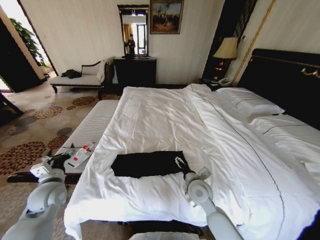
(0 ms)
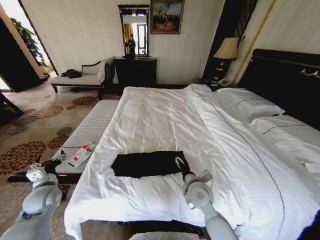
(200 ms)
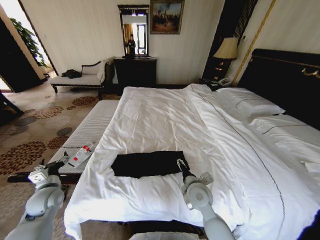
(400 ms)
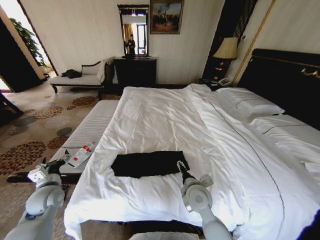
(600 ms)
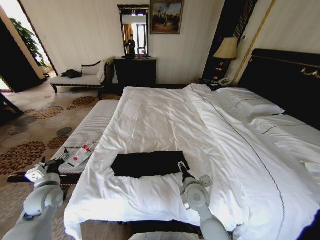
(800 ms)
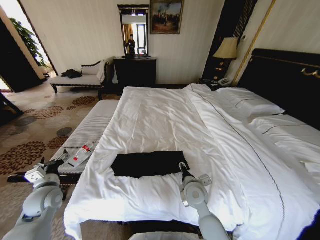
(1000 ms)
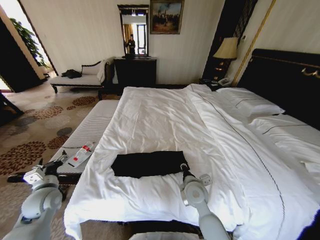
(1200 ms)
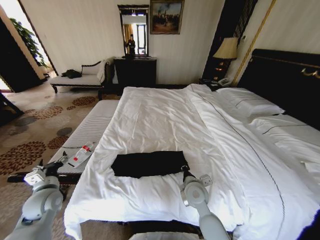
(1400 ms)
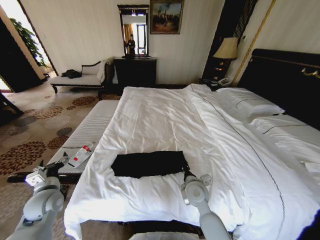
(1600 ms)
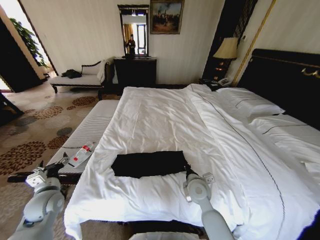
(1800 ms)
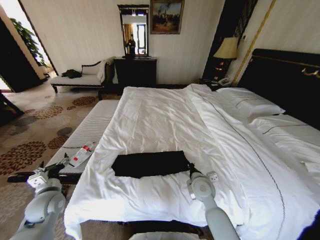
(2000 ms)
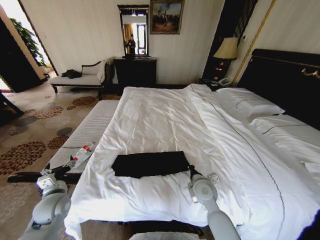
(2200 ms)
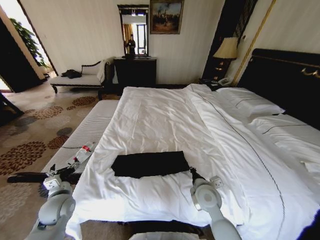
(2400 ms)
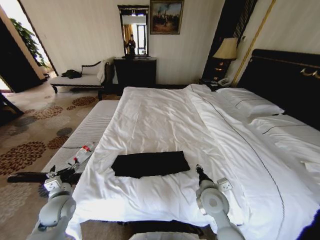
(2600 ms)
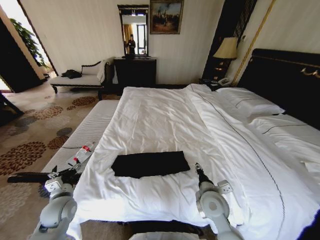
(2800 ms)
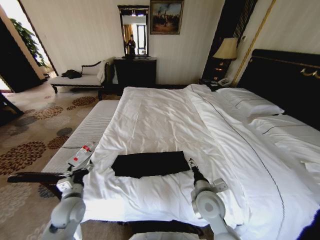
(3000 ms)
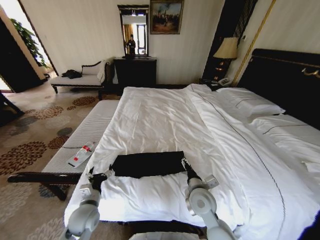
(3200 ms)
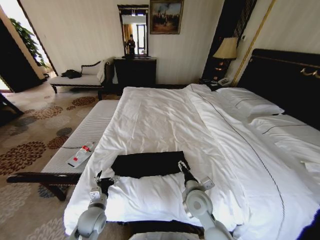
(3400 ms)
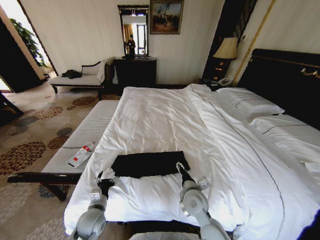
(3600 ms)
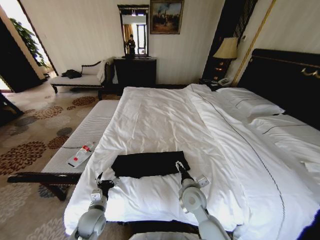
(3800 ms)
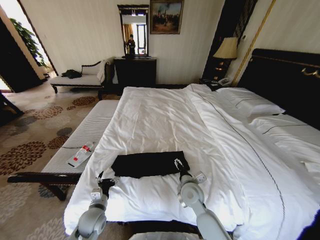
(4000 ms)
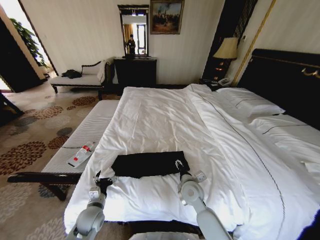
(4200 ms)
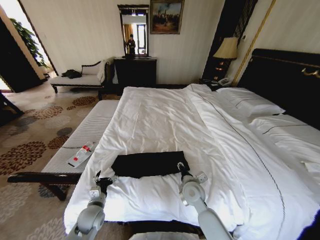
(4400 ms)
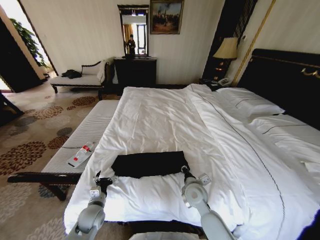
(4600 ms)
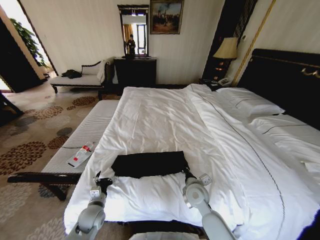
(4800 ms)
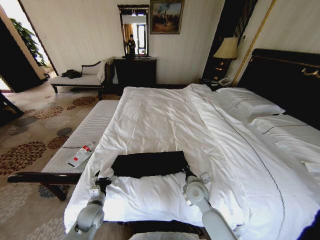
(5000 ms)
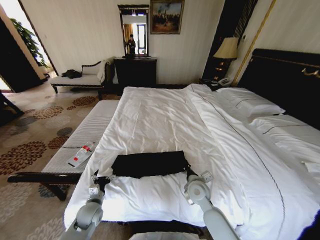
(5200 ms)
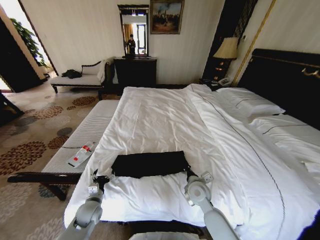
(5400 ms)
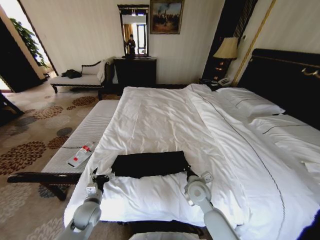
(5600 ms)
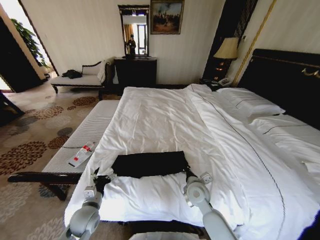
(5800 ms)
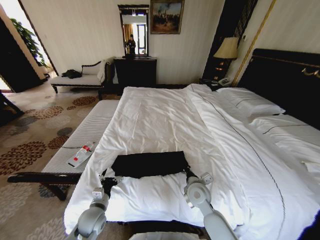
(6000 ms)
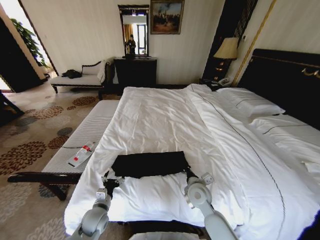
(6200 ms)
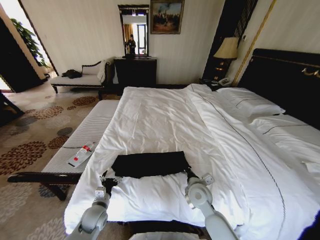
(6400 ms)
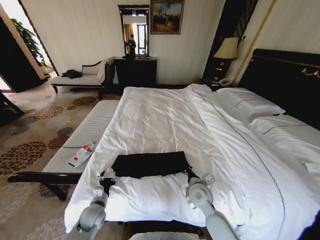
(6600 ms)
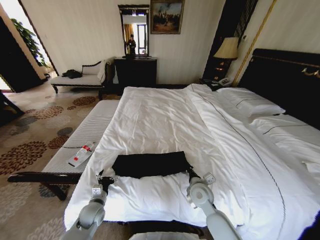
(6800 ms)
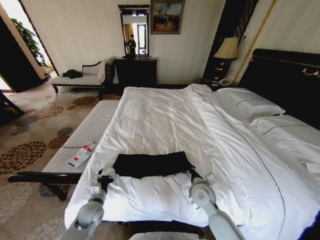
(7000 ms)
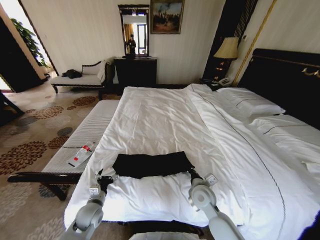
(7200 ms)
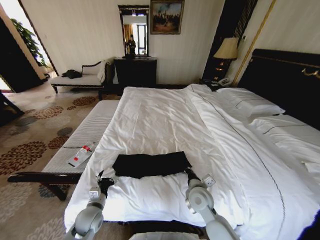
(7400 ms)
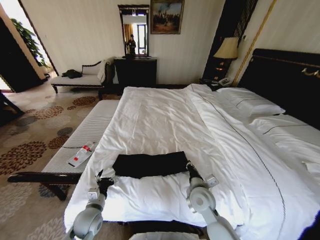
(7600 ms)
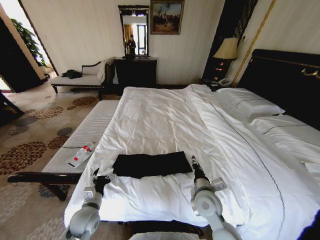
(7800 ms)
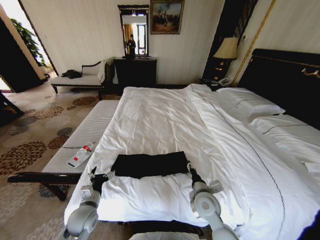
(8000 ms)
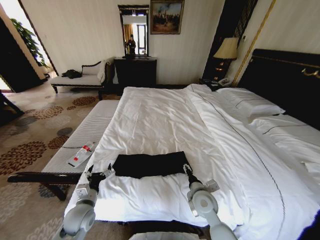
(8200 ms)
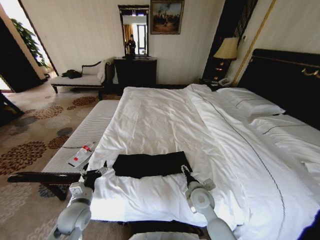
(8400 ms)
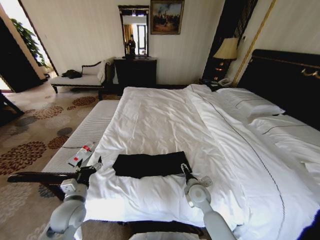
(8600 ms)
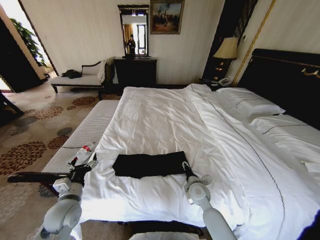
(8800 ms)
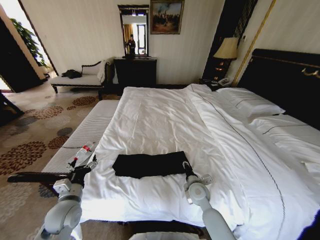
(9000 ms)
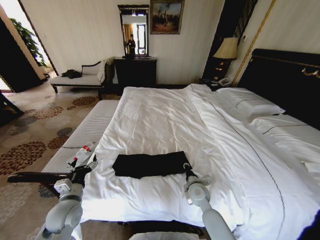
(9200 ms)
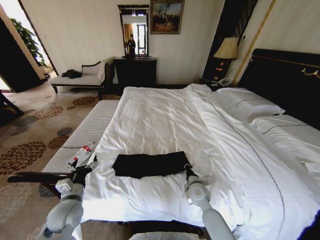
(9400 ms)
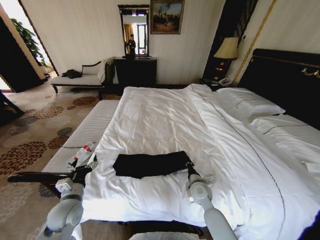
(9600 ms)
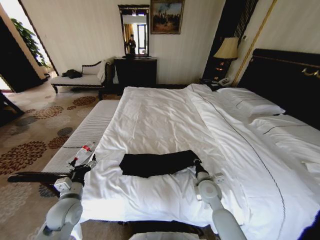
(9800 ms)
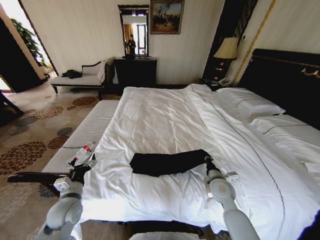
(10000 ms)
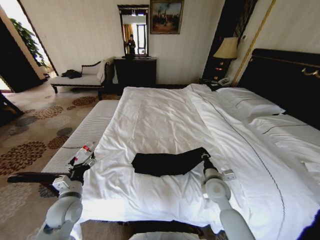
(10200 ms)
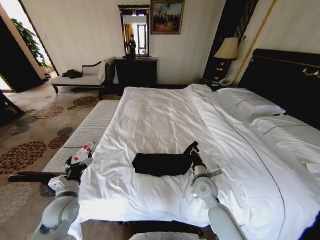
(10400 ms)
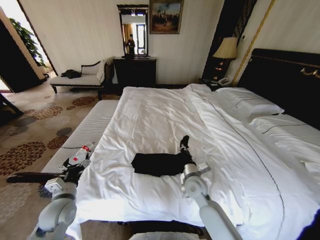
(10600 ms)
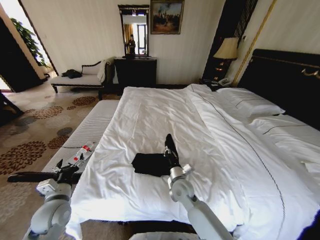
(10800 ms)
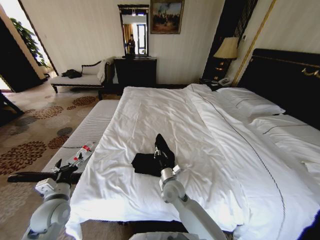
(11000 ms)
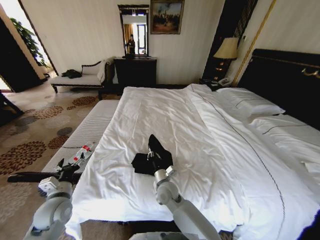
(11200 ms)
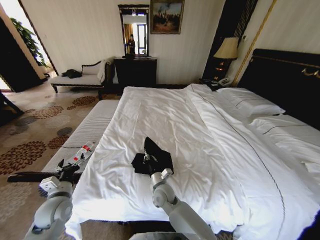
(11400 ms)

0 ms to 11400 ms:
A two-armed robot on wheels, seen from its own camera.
Task of the whole recording: Fold the clothes on the bed.
0 ms to 1400 ms: The right gripper closes its fingers.
1400 ms to 2800 ms: The left gripper shifts by approximately 5 cm. The right gripper is displaced to the right by about 5 cm.
2800 ms to 4200 ms: The left gripper heads to the right and downward, covering some 10 cm; the right gripper heads to the left and forward, covering some 10 cm.
4200 ms to 5600 ms: The right gripper closes its fingers.
5600 ms to 7200 ms: There are only small adjustments of the grippers.
7200 ms to 8600 ms: The left gripper is displaced upward by roughly 10 cm; the right gripper opens.
8600 ms to 10000 ms: The right gripper is displaced to the right and upward by approximately 10 cm, and closes its fingers.
10000 ms to 11400 ms: The right gripper is displaced to the left by roughly 25 cm.

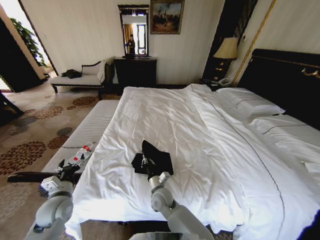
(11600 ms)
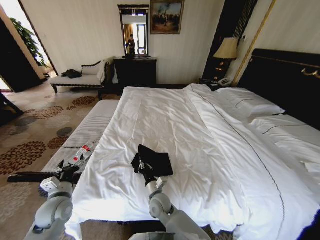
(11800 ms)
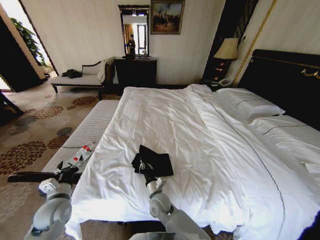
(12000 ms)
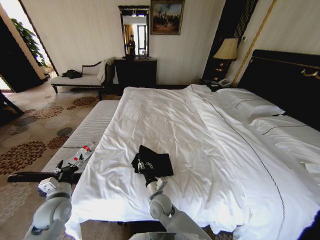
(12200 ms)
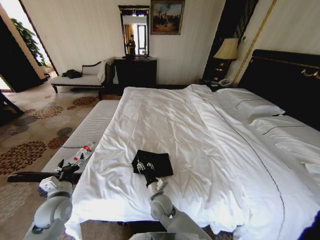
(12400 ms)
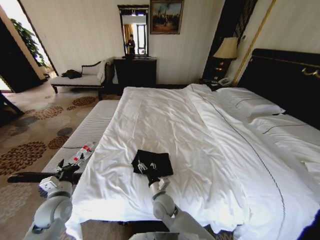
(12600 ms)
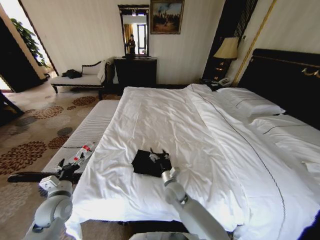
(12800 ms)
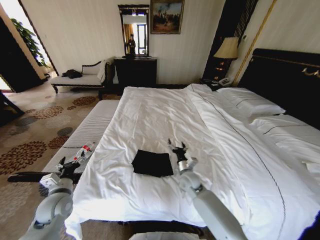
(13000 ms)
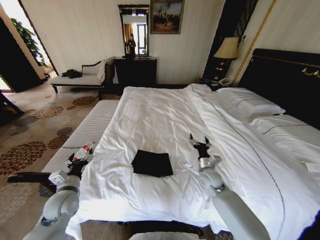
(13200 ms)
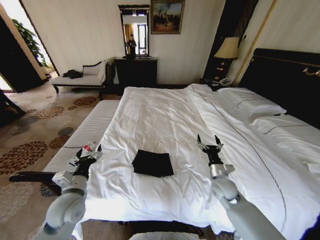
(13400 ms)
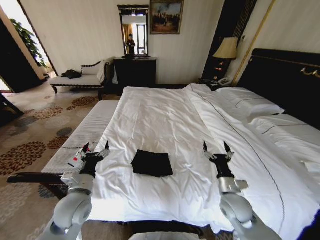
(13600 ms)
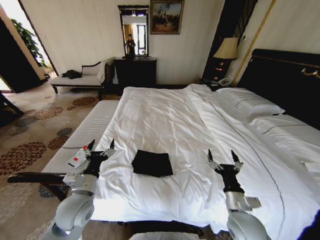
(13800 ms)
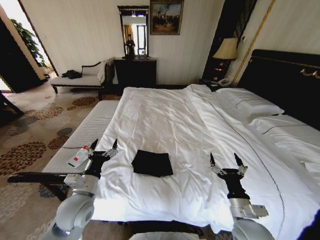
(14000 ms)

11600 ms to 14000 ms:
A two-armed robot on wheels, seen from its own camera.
Task of the whole recording: Fold the clothes on the bed.
11600 ms to 12800 ms: The right gripper moves roughly 5 cm, and opens its fingers.
12800 ms to 14000 ms: The left gripper goes roughly 10 cm to the right and upward; the right gripper heads to the right and backward, covering about 25 cm.
